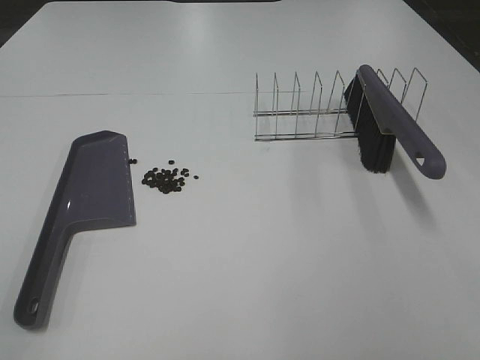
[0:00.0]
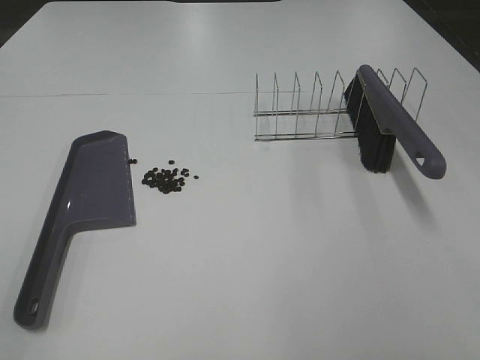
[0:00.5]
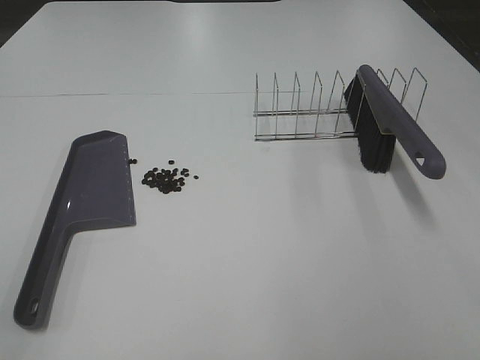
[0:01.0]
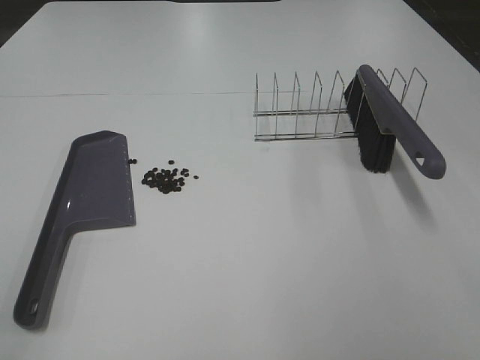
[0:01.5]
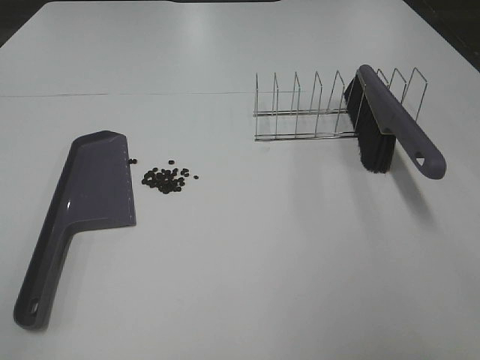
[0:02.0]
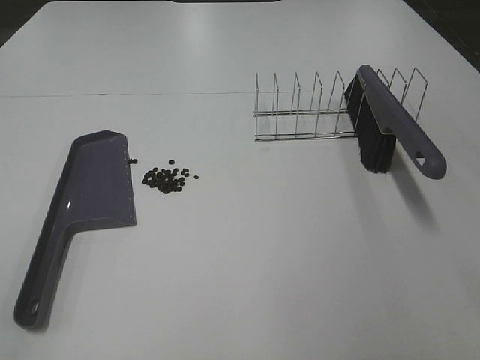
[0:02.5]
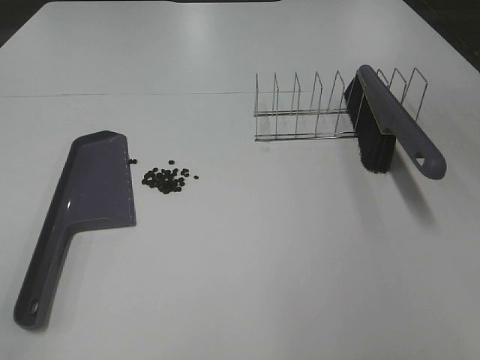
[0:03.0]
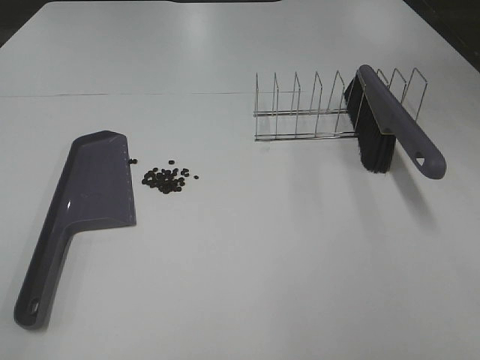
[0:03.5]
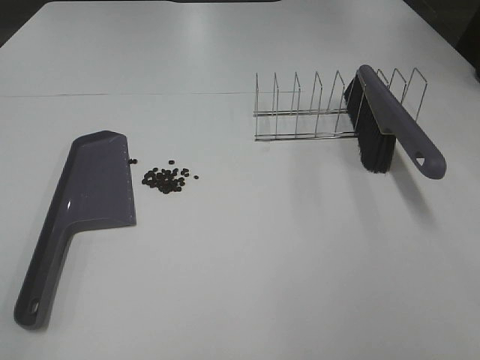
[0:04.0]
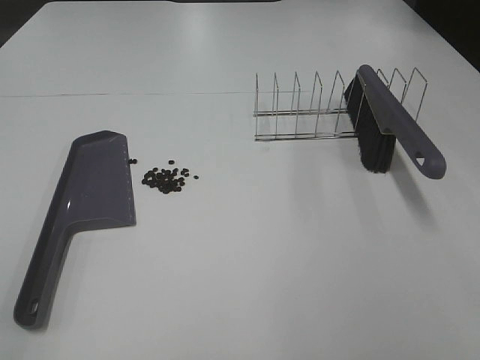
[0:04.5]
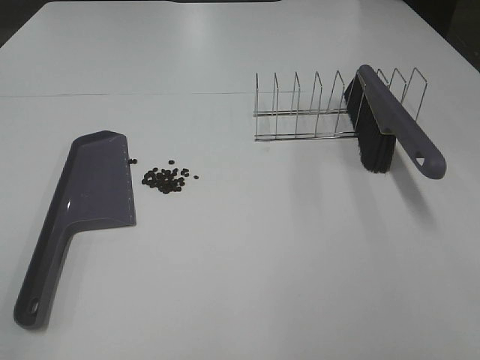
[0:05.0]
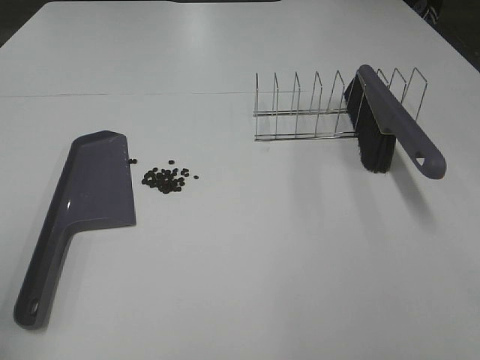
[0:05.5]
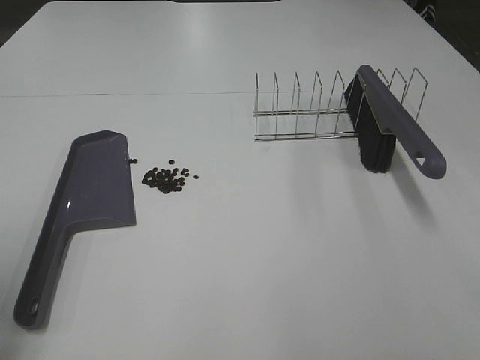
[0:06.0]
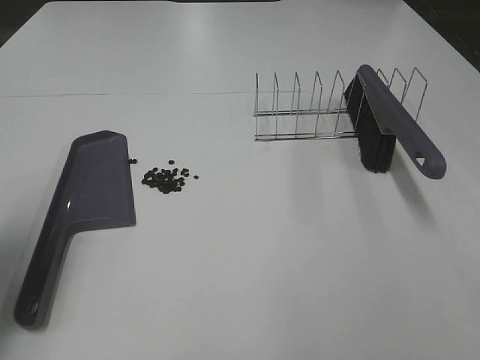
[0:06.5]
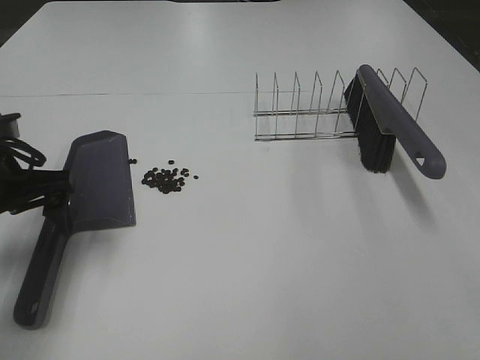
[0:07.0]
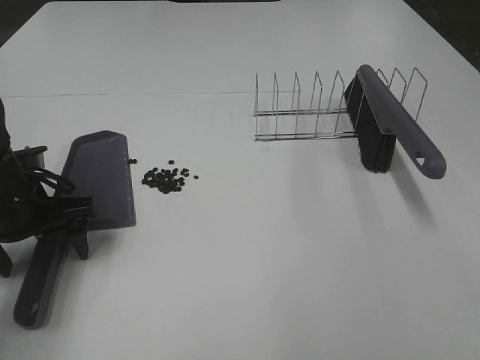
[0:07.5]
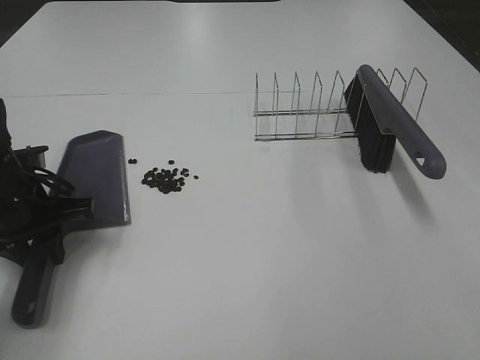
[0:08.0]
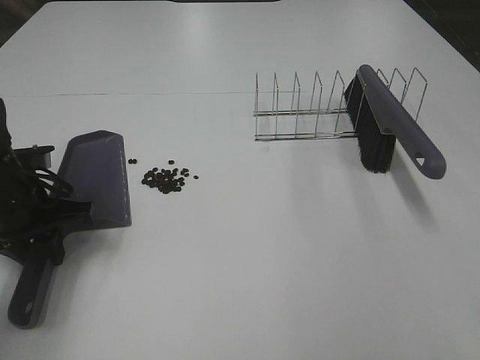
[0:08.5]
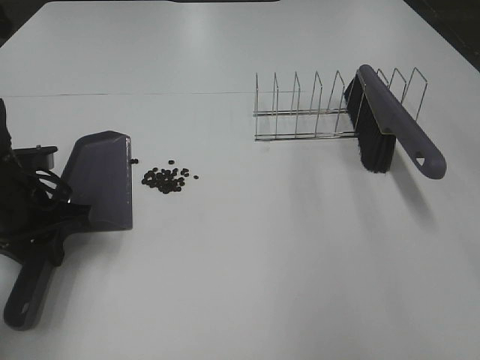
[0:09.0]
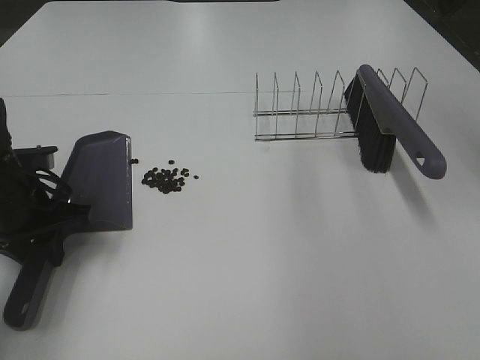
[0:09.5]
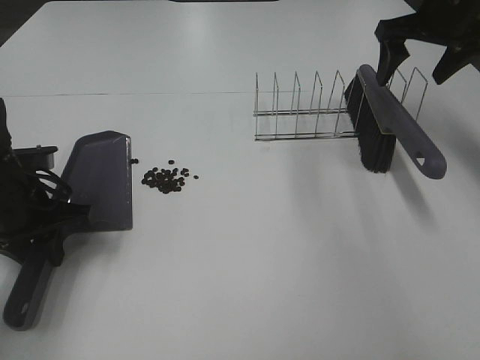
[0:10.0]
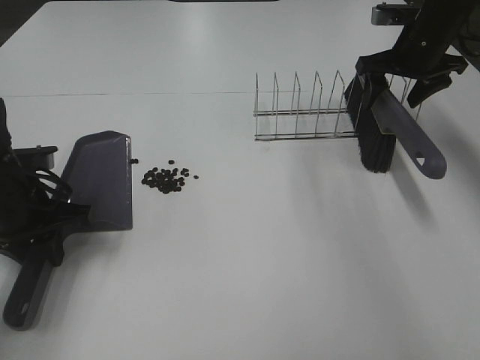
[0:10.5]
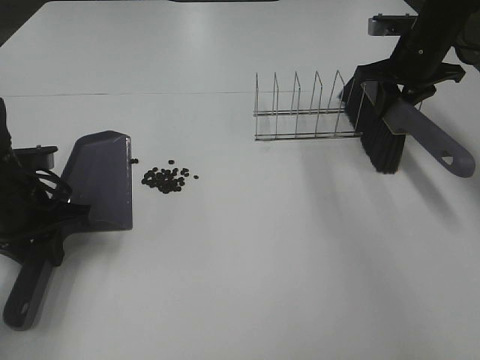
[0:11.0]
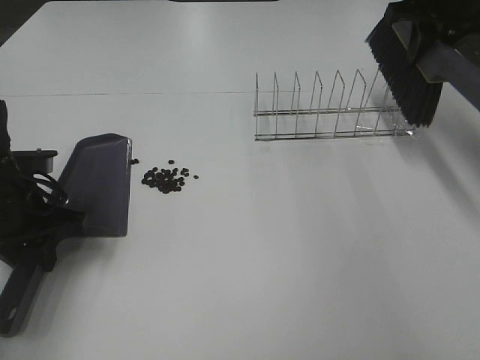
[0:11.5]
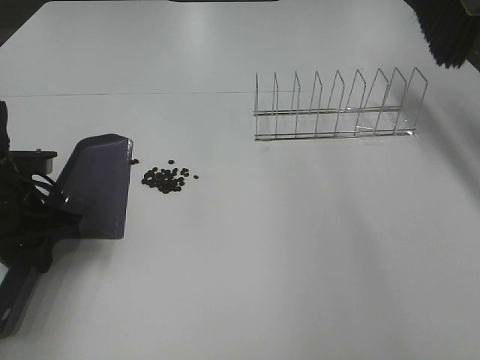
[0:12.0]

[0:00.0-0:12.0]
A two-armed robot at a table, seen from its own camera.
Task of the whole recording: Sweep Coffee Bean.
Step, 0:00.0 to 0:08.0: Left hand: grab the dustpan.
Step, 0:08.0 to 0:10.5: Right hand:grab the broom.
0:00.0 to 0:04.0: Neither gripper changes place.
0:04.0 to 0:06.0: The left gripper goes some 15 cm forward and downward.
0:06.0 to 0:08.0: The left gripper heads forward, downward and to the right, covering about 20 cm, and closes up.
0:08.0 to 0:10.0: The right gripper goes roughly 50 cm forward.
0:10.0 to 0:12.0: The right gripper is displaced upward by approximately 15 cm, and closes up.

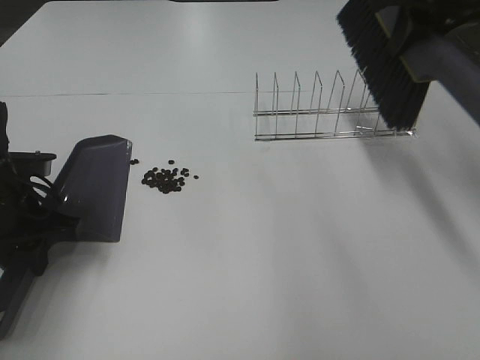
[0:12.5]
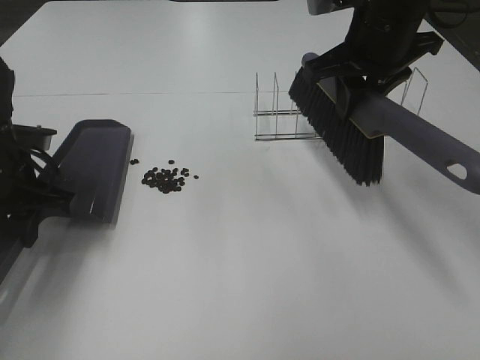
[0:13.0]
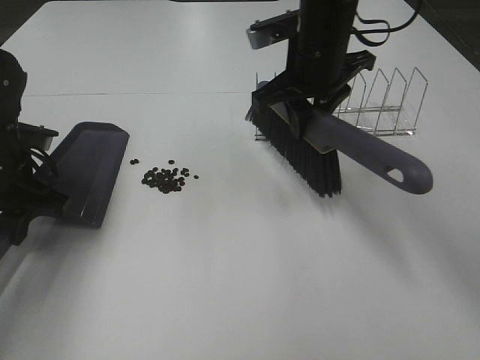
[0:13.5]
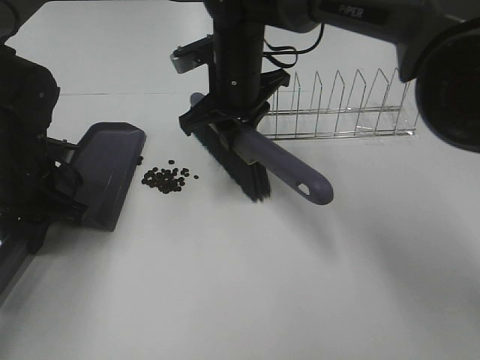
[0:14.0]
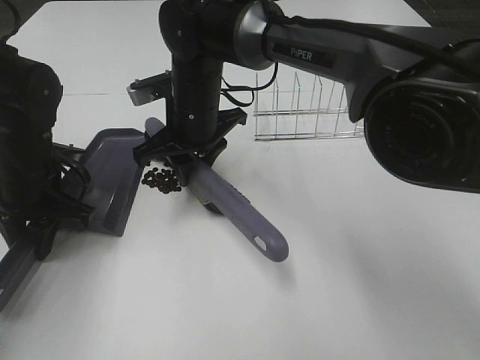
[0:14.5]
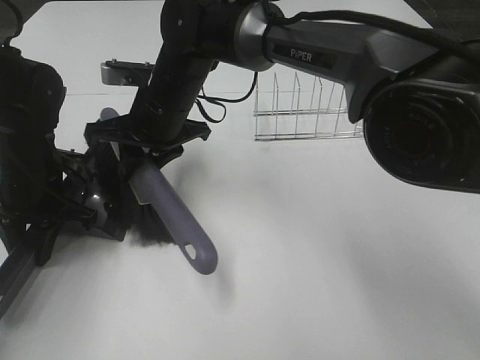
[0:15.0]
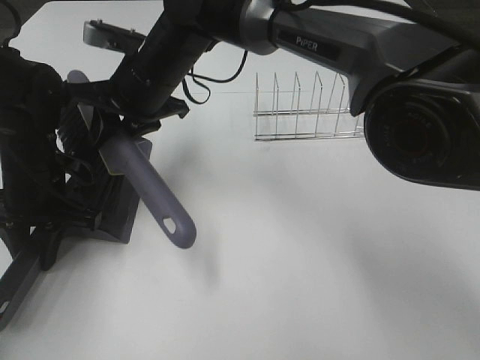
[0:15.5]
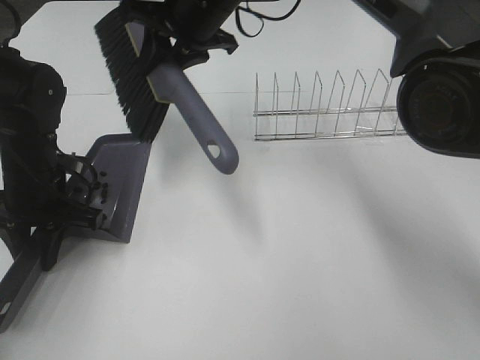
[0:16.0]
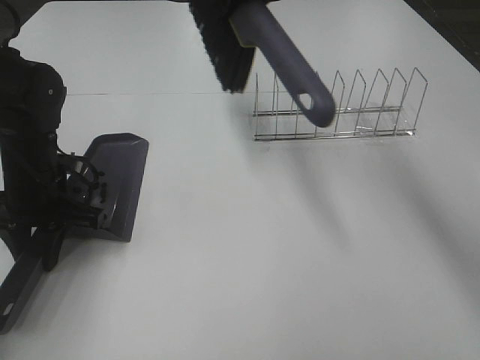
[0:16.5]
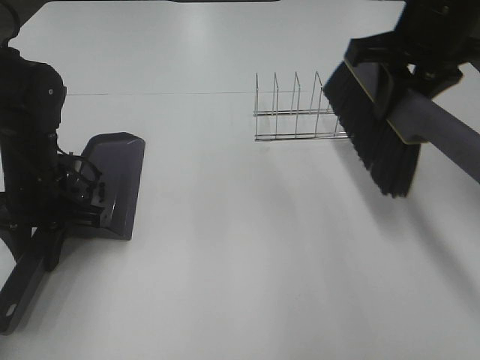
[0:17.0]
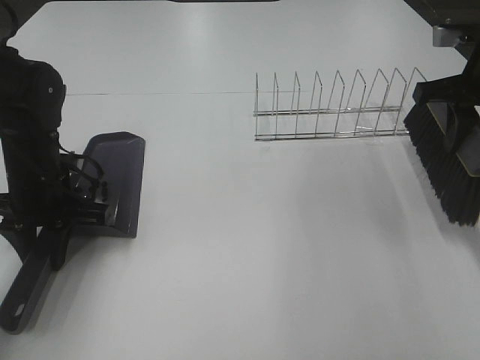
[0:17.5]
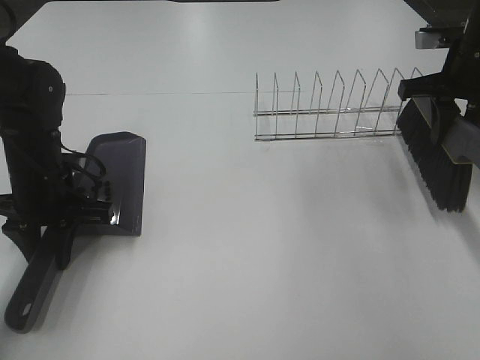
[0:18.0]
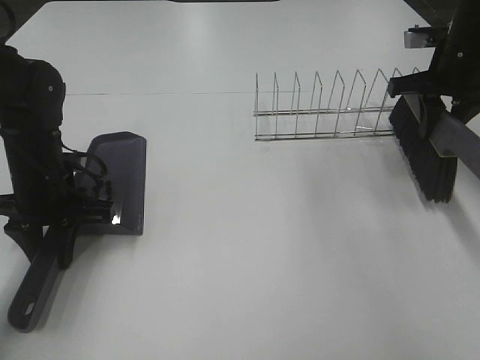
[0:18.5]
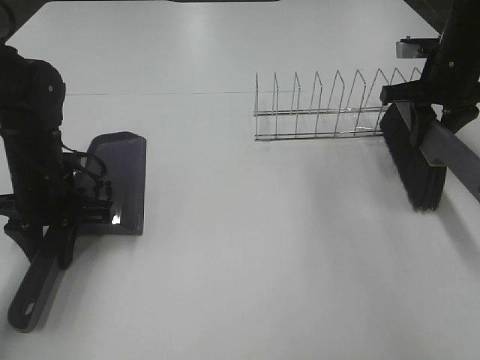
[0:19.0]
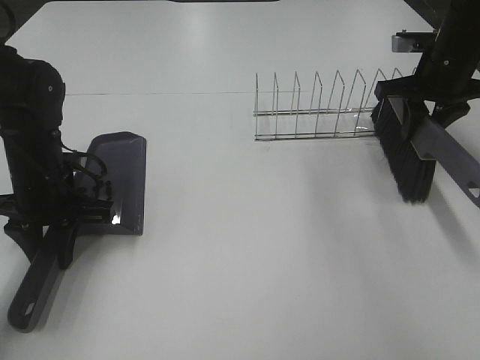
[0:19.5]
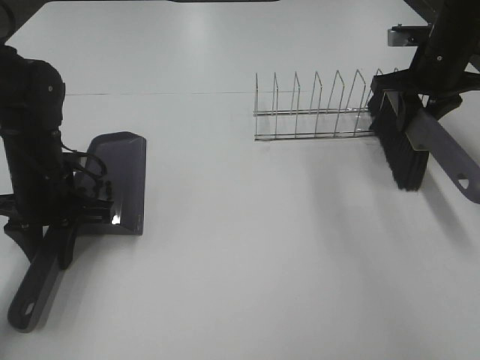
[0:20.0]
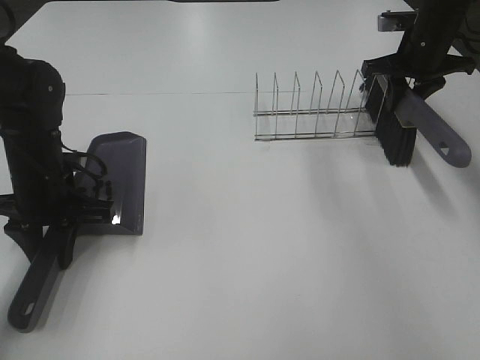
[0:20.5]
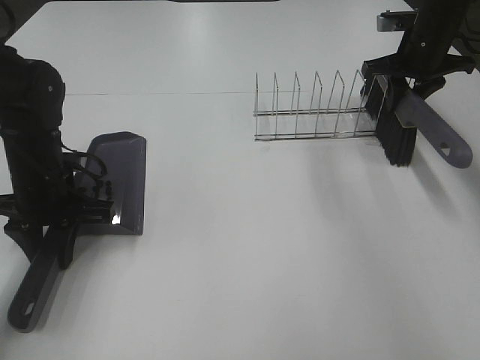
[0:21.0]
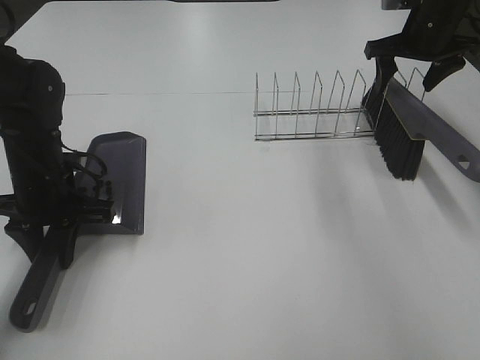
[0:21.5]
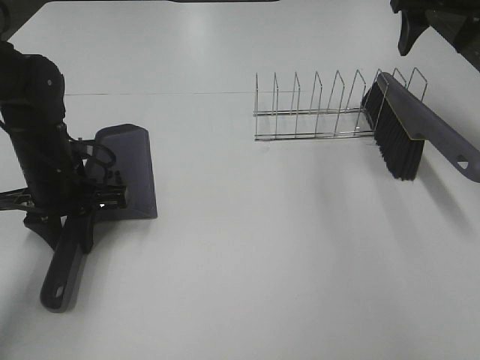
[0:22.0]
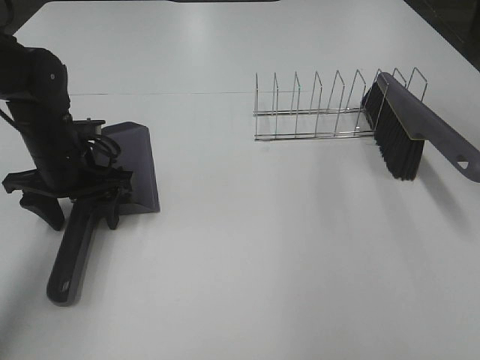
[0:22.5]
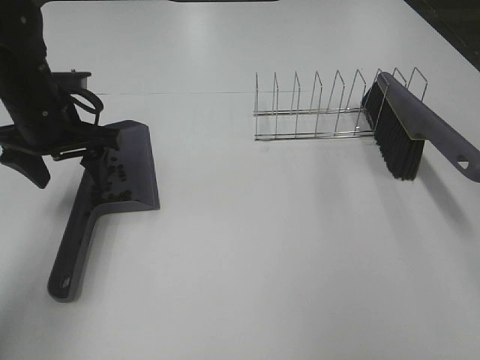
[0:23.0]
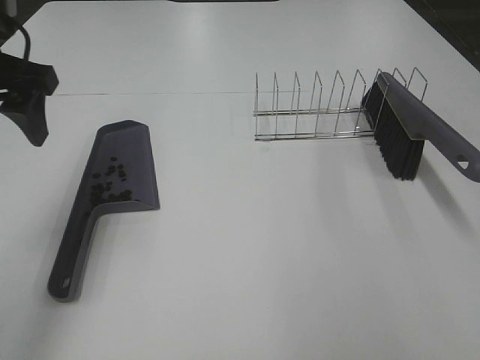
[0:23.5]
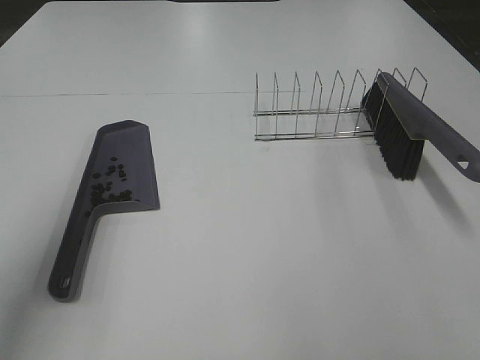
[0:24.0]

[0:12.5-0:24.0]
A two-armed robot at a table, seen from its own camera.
Task of the whole recording: Sweep Coffee Bean.
Step, 0:12.5 to 0:15.5: Right hand:sweep the coffee beans into the dustpan.
Step, 0:16.0 to 0:21.5: Right hand:place the broom on the rack.
0:12.5 to 0:14.5: The right gripper is displaced to the left and downward by about 30 cm. Meanwhile the left gripper shifts by some 5 cm.
0:14.5 to 0:16.5: The right gripper goes some 20 cm upward and to the right.
0:16.5 to 0:18.5: The right gripper heads to the right and downward, covering roughly 25 cm.
0:18.5 to 0:20.0: The grippers stay close to where they were, moving slightly.
0:20.0 to 0:22.0: The right gripper is displaced upward by roughly 10 cm, and opens its fingers.
0:22.0 to 0:24.0: The left gripper goes roughly 25 cm upward and backward, and opens; the right gripper goes about 40 cm backward.

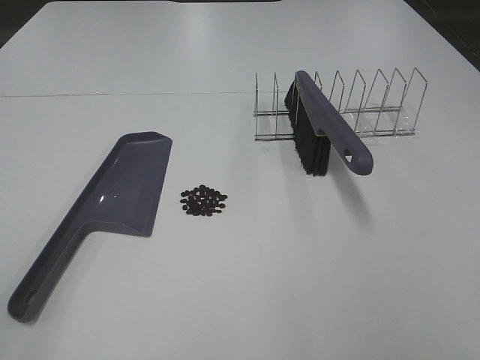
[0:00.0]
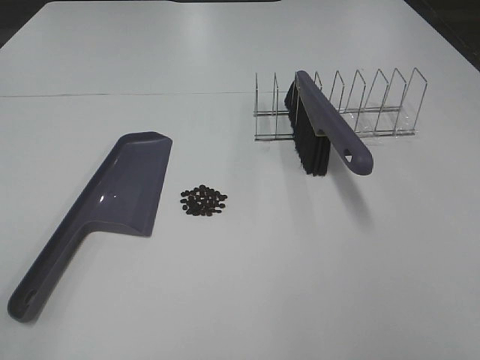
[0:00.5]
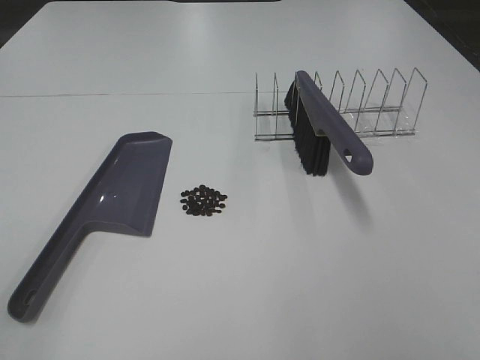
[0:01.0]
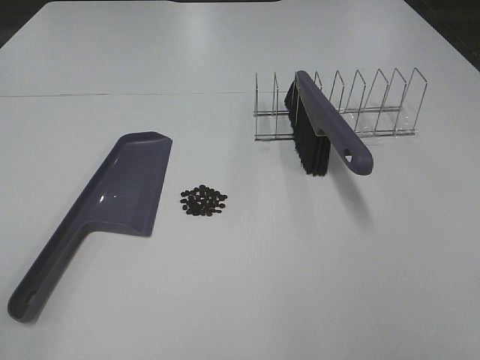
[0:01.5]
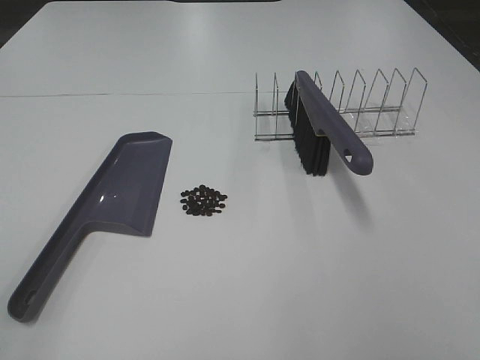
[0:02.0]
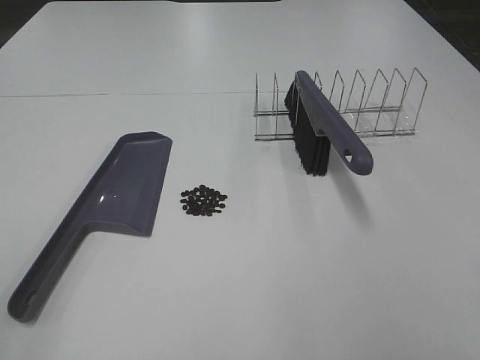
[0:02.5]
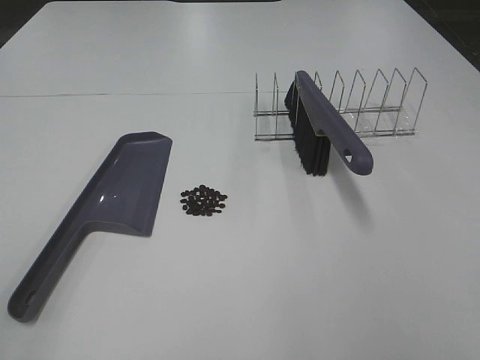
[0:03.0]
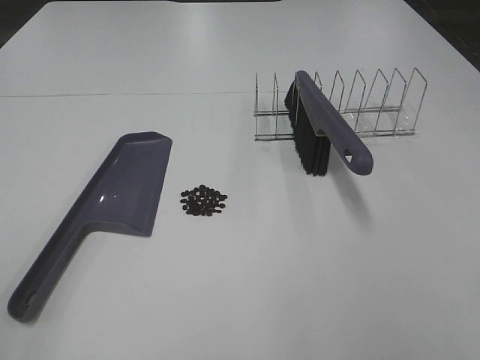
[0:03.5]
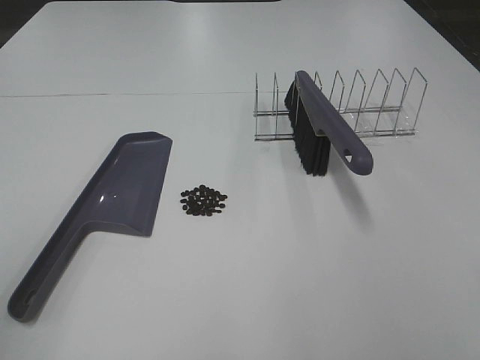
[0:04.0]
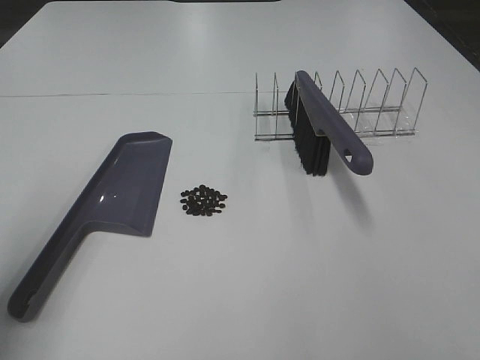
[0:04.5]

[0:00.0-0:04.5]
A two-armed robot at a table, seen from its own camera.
Task of the whole recording: Sweep Coffee Bean.
0:00.0 to 0:02.0: Both grippers stay put.
0:02.0 to 0:04.5: The left gripper is displaced forward by some 15 cm.
